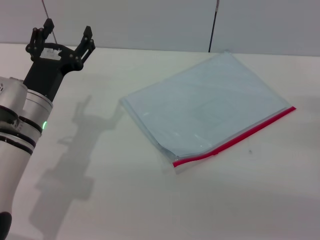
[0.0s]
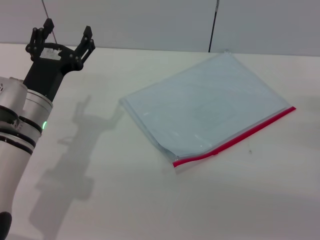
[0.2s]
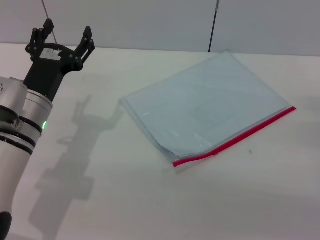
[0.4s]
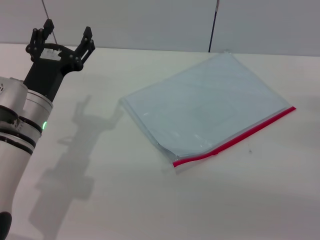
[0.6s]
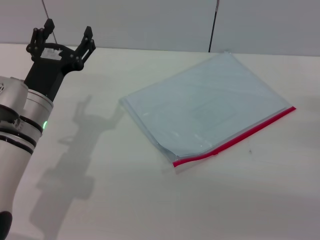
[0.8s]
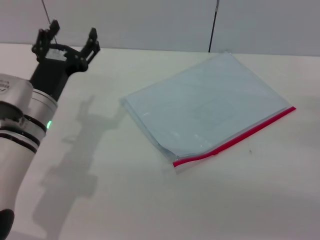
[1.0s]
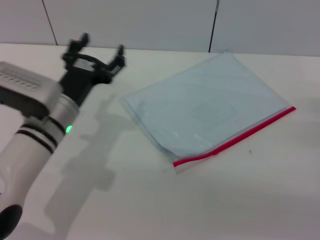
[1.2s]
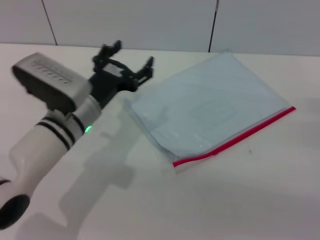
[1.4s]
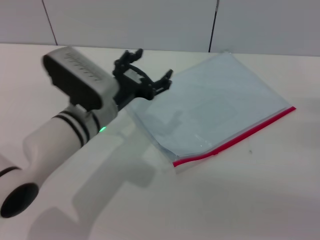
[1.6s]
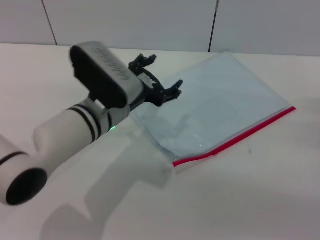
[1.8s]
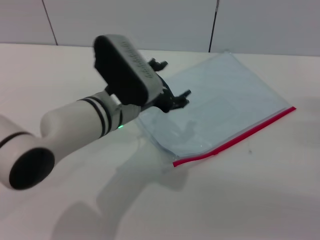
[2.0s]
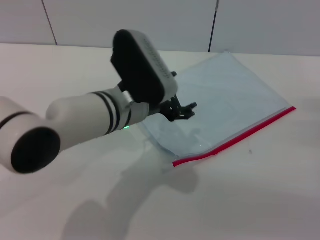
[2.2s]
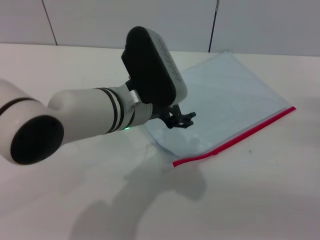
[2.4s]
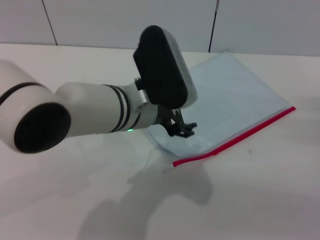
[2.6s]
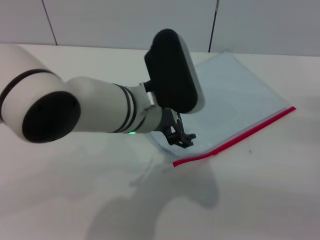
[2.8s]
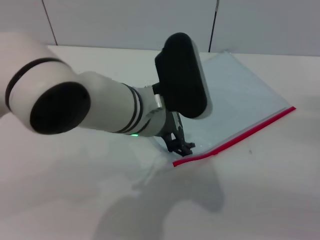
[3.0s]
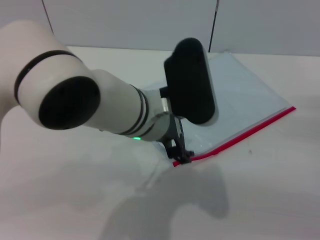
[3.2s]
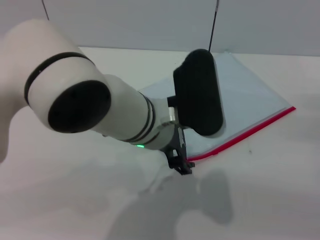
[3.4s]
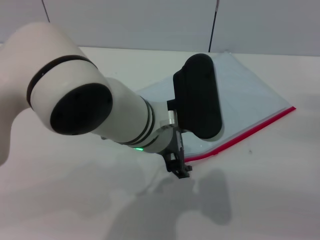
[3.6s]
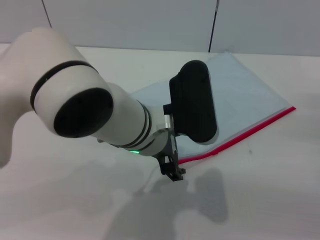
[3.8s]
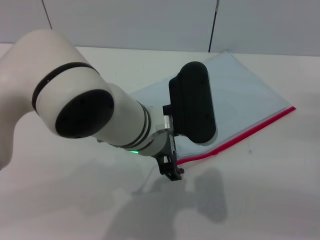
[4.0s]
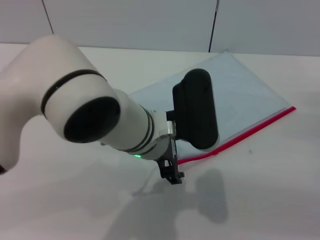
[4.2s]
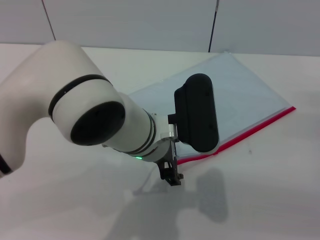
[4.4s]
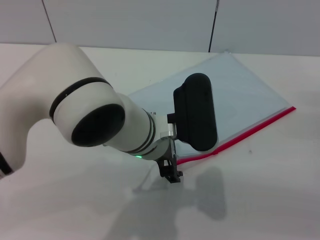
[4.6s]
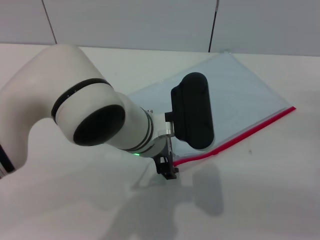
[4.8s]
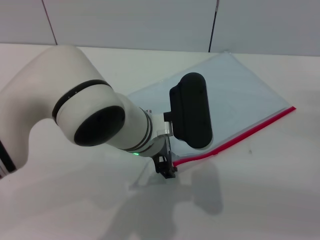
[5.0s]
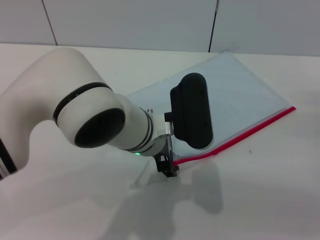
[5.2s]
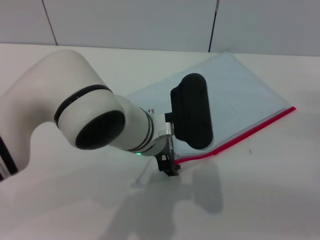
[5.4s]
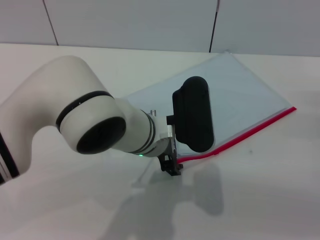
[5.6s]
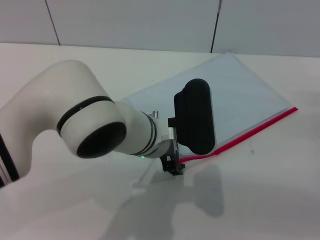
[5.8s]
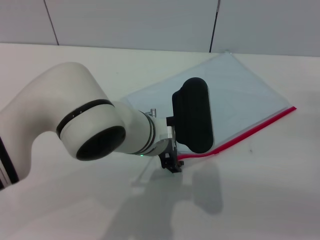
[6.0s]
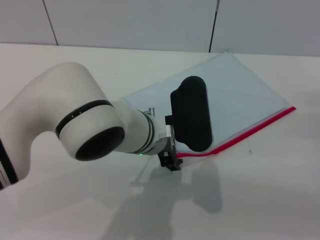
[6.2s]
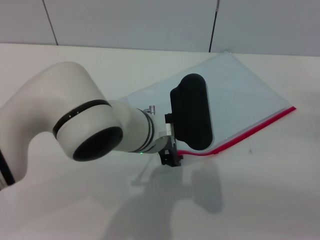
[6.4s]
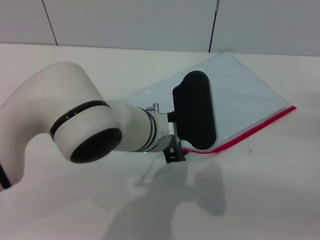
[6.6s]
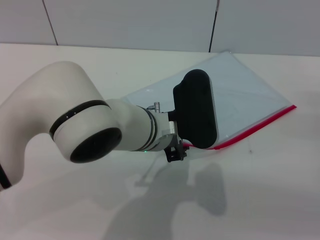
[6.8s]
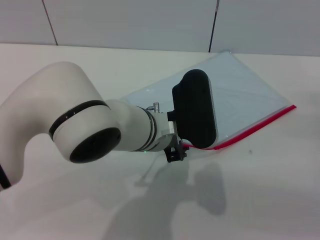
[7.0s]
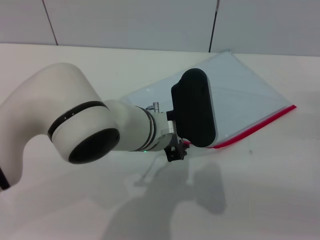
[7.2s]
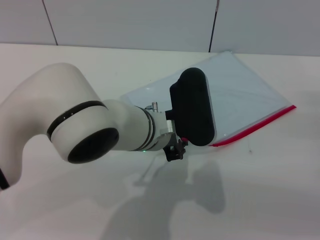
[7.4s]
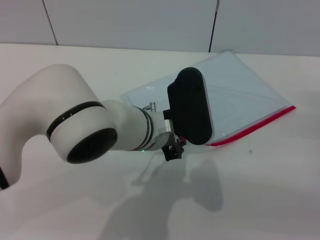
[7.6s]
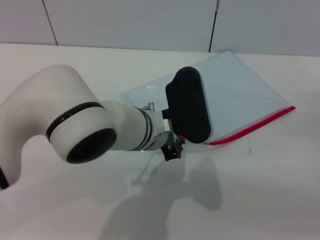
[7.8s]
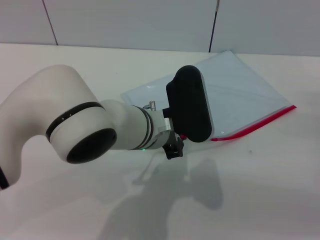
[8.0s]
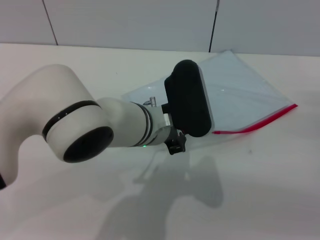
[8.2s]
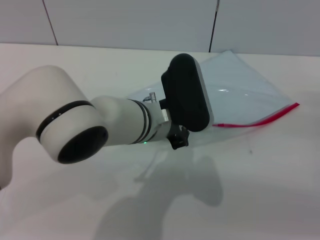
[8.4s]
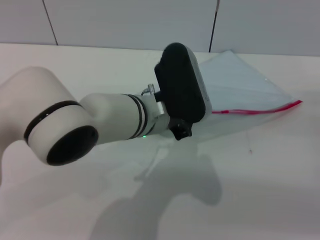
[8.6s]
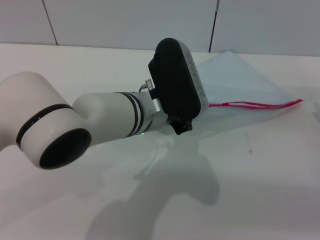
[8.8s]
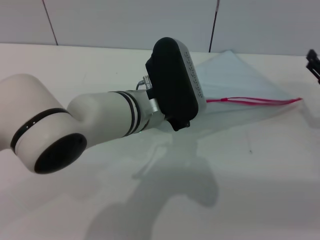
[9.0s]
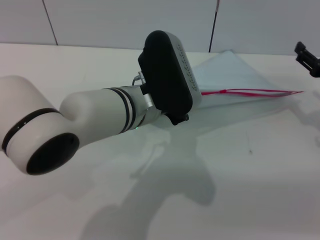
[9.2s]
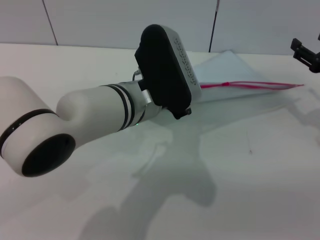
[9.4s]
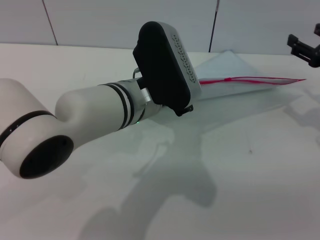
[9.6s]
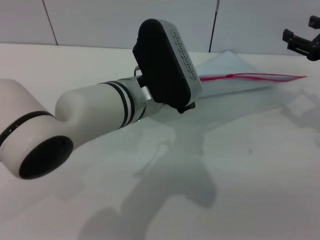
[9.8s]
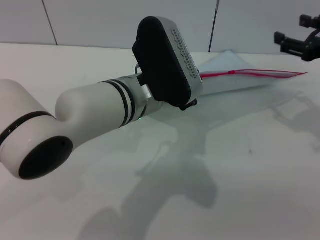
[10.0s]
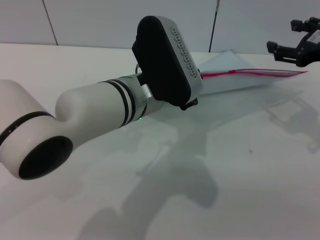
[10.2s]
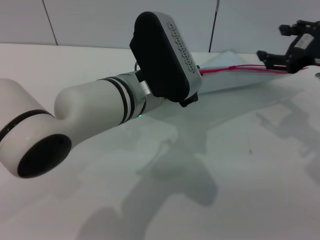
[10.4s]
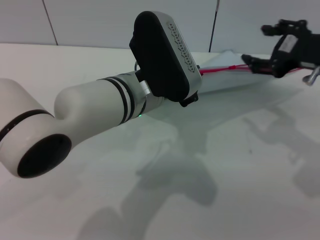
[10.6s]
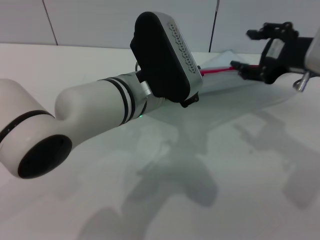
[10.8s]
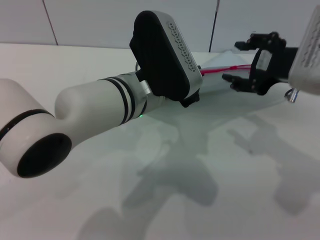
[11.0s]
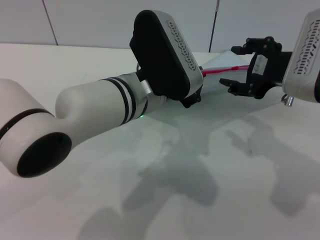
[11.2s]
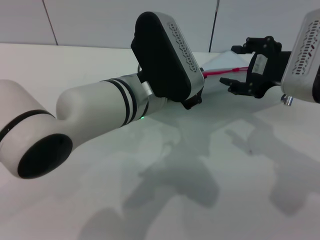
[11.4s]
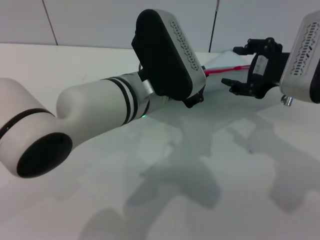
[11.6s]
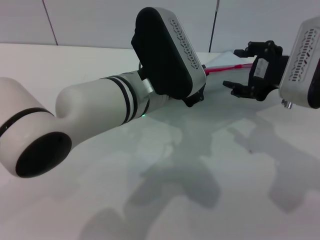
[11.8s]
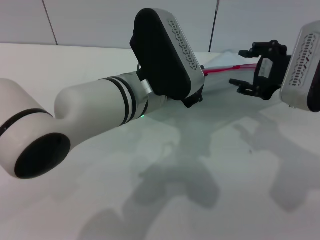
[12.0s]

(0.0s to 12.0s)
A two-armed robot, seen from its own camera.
Step, 0.0s - 8.4s: Pick up the transparent plastic bag with the left gripper.
0.0s - 1.6s: The left gripper heads to the right, covering about 5 cm.
1.6s - 3.0s: The left gripper heads upward and to the right, covering approximately 10 cm.
4.4s - 6.0s: The grippers stay close to where they were, moving slightly.
6.0s - 7.6s: The left gripper closes its fingers.
7.6s - 9.0s: The grippers make only small movements.
9.0s - 10.4s: The right gripper goes approximately 15 cm upward and to the left.
10.4s - 12.0s: The right gripper goes roughly 5 cm to the left.

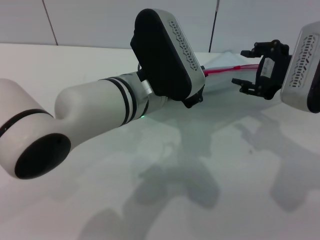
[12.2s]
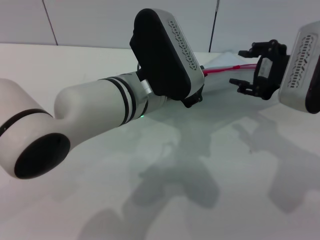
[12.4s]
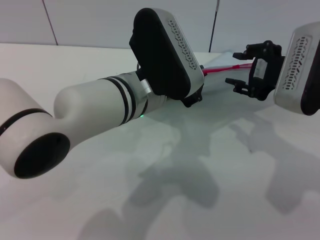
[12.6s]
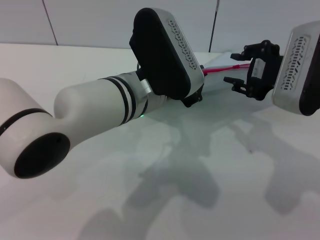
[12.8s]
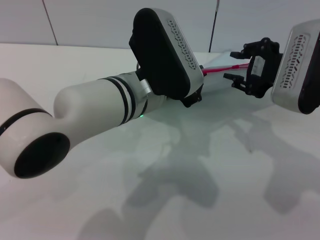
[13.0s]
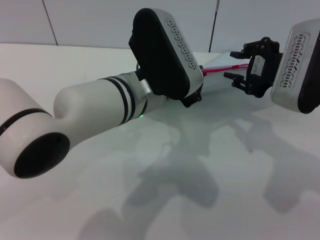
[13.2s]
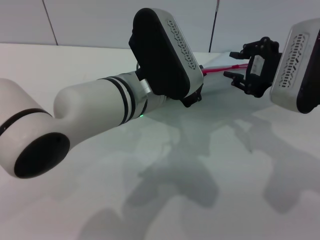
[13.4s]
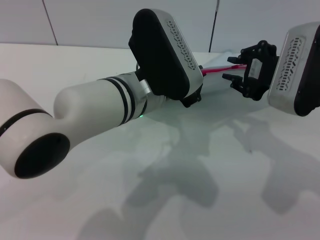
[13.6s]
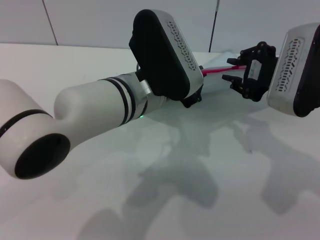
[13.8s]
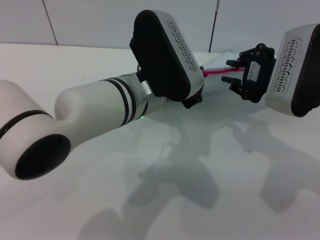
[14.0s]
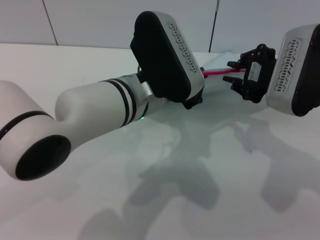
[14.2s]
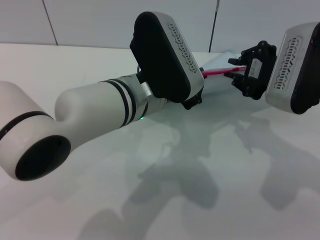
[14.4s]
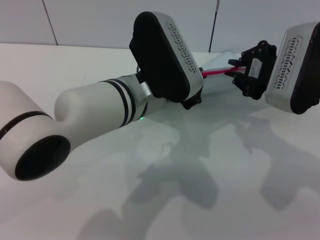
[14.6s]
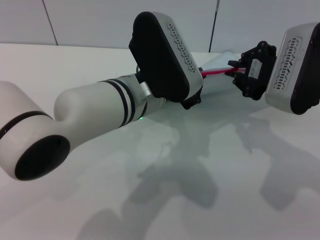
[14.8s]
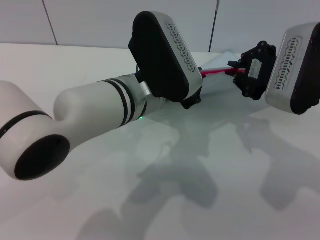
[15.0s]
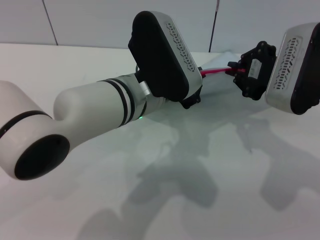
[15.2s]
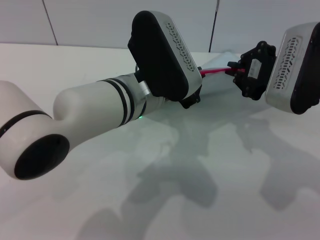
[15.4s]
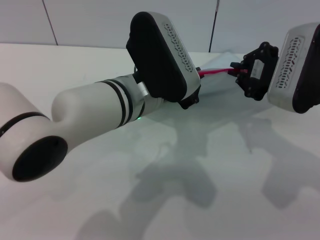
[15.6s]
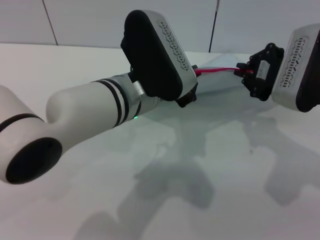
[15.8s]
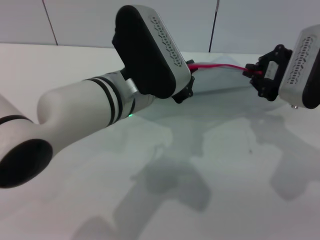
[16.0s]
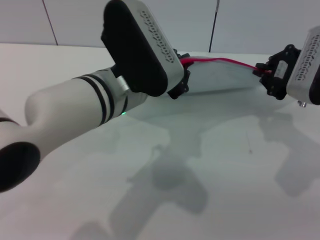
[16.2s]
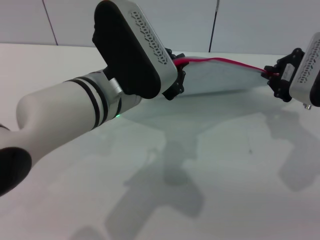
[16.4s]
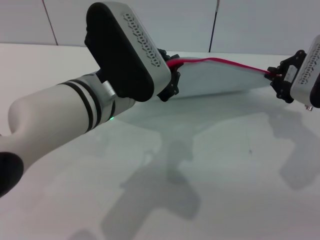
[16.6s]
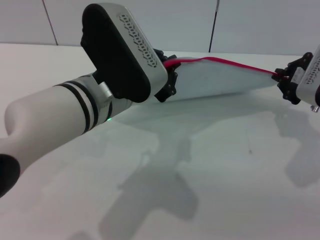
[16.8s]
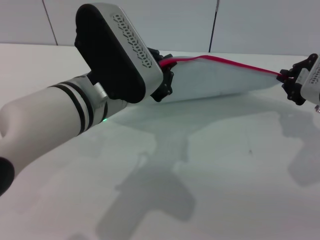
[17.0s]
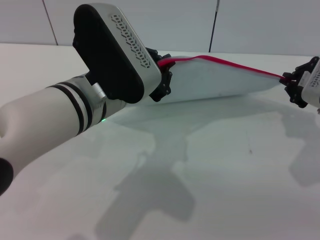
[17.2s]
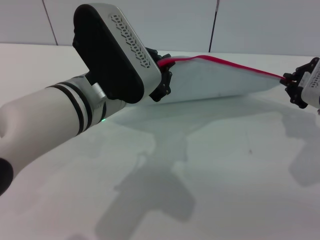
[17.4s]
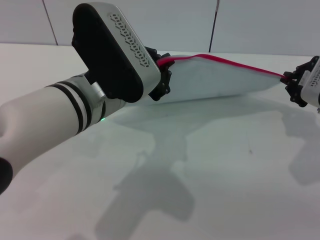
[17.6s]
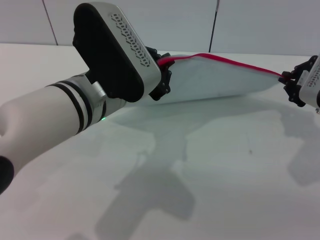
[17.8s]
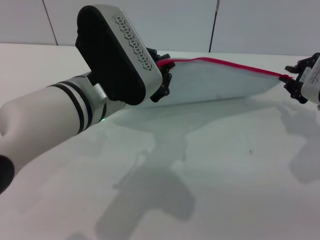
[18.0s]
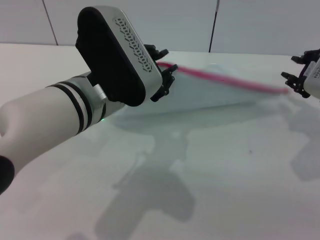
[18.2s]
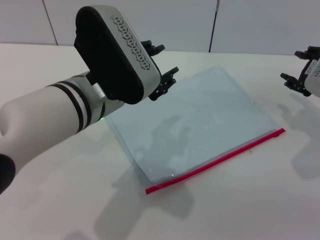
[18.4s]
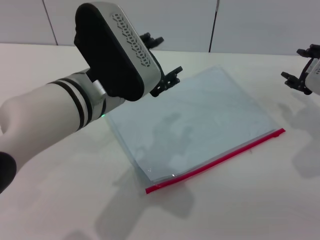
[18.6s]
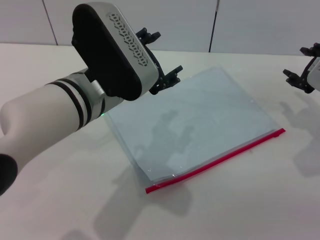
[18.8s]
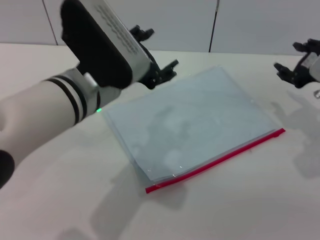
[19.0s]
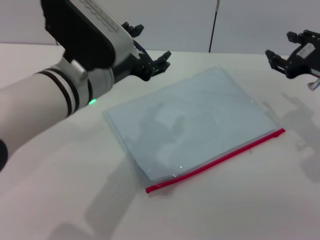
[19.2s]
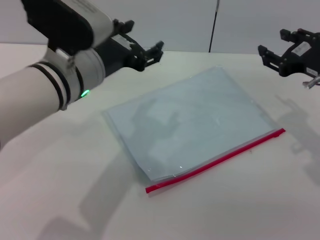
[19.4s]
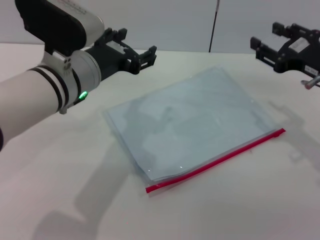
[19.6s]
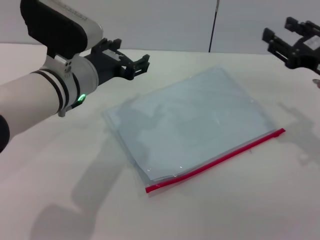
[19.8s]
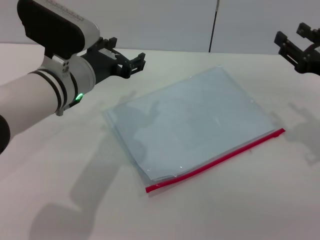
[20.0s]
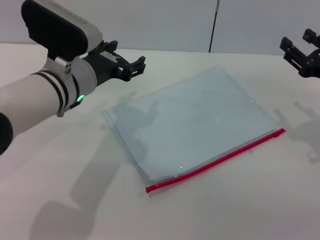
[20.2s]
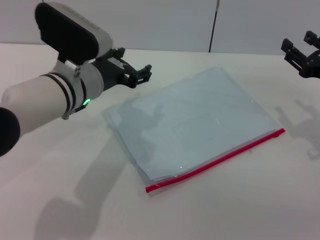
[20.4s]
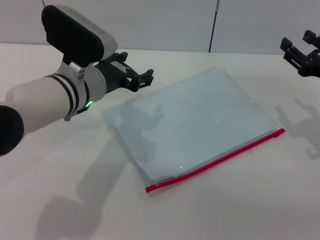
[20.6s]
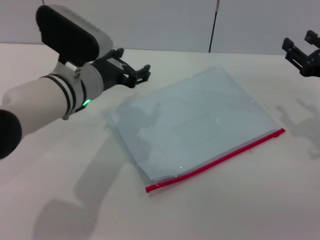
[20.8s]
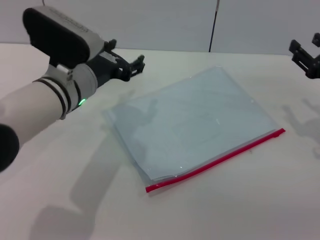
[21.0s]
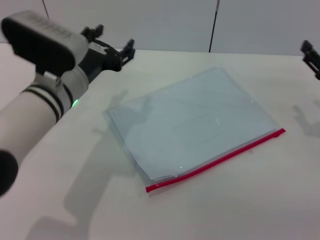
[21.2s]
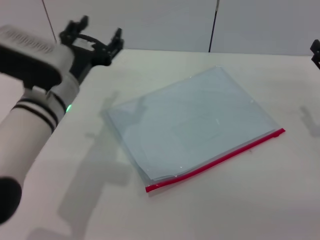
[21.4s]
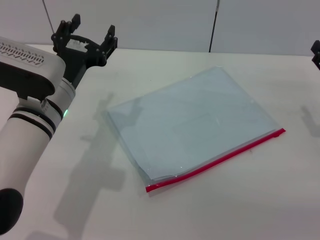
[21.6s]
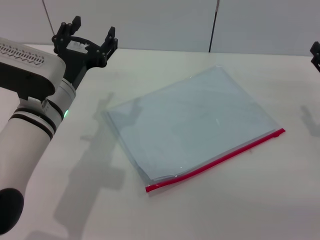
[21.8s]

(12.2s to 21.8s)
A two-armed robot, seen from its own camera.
Step, 12.2s - 18.2s: Pulling up the zipper on the transparent plastic bag with the right gripper to close it.
Step, 18.6s - 19.2s: Place the transparent plastic bag.
12.2s - 13.8s: The right gripper closes.
13.8s - 15.4s: The right gripper closes up.
15.4s - 17.0s: The right gripper shifts roughly 5 cm to the right. The left gripper ends up about 5 cm from where it was.
17.0s - 18.6s: The right gripper opens up; the left gripper opens its fingers.
18.6s - 20.2s: The right gripper changes place by approximately 5 cm. Meanwhile the left gripper heads forward and to the left, covering some 10 cm, and opens its fingers.
